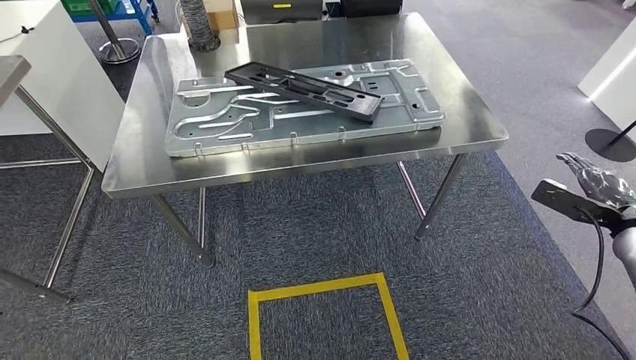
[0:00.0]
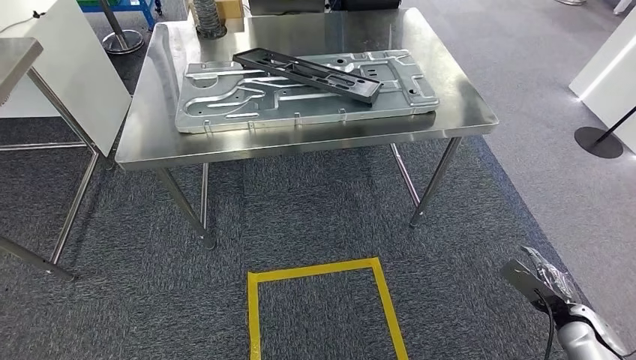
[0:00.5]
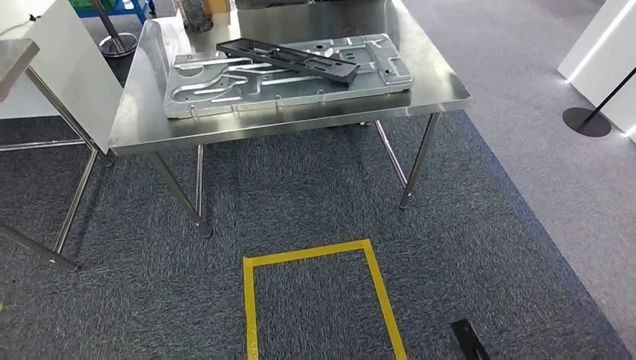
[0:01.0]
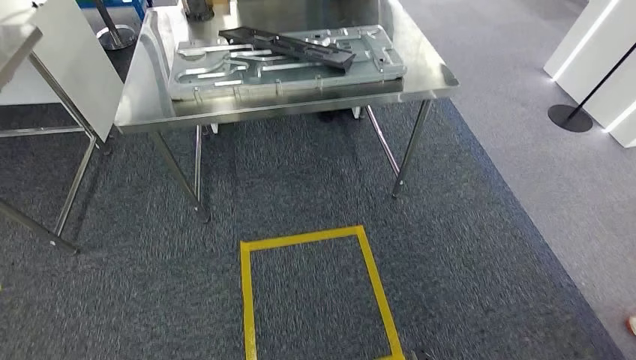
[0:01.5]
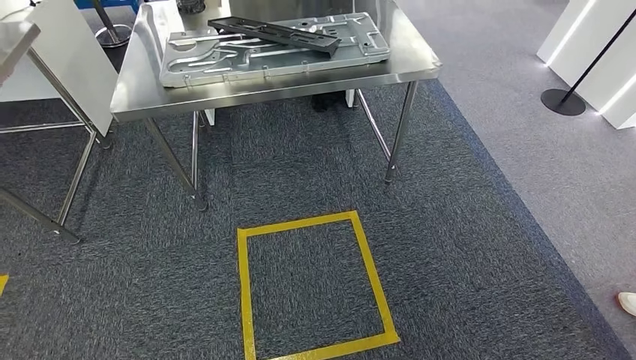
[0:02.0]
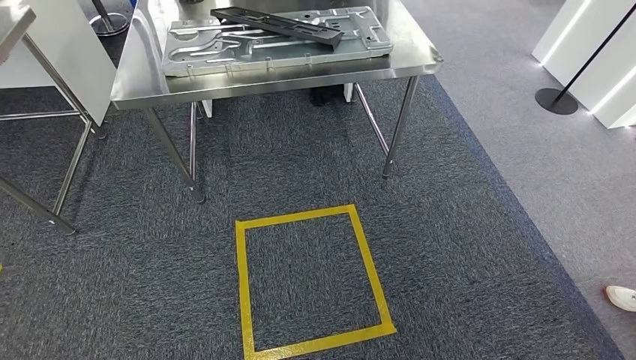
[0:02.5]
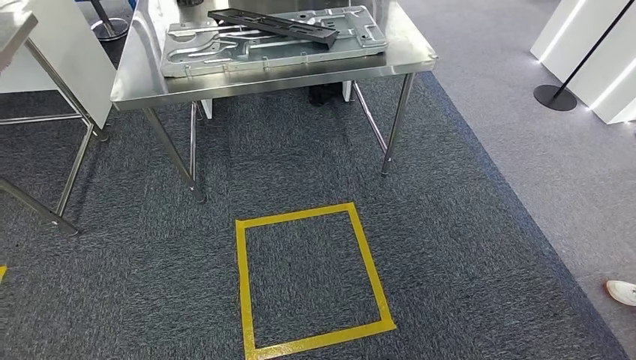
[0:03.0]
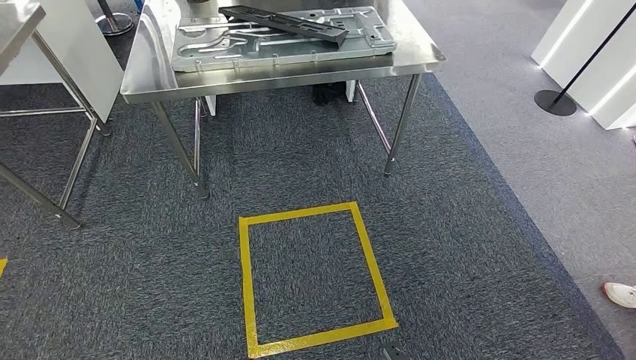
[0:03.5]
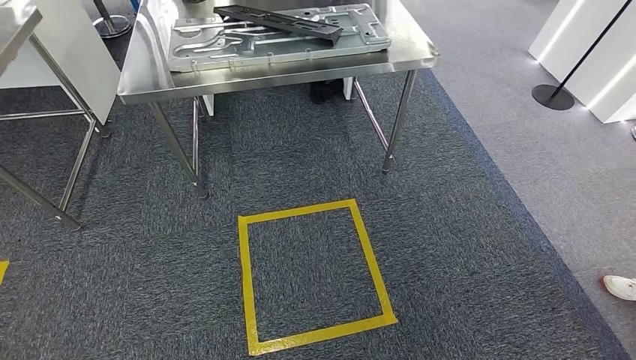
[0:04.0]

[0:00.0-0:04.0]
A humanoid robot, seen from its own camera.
Step, 0:00.0 to 0:04.0: Move to the initial position of the shelf.
0:02.0 to 0:04.0: The right hand shifts some 5 cm backward.

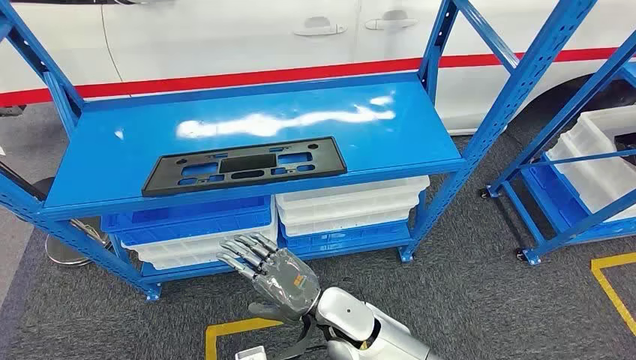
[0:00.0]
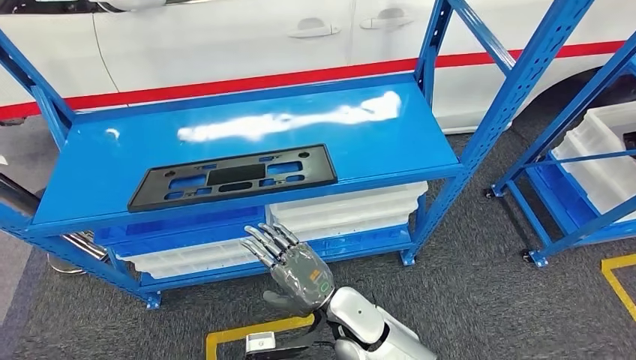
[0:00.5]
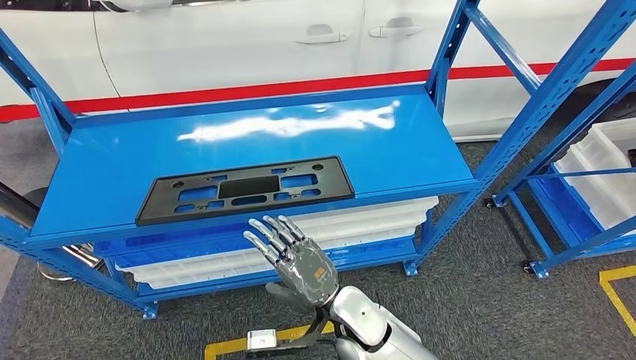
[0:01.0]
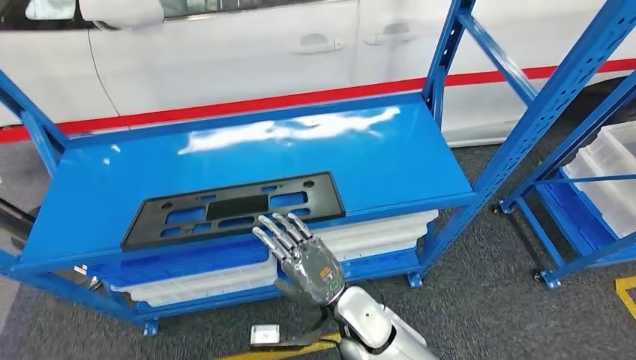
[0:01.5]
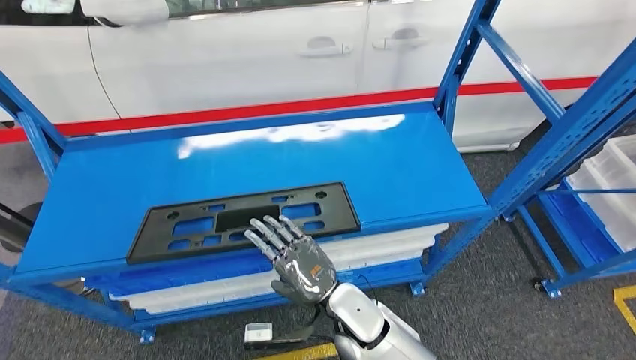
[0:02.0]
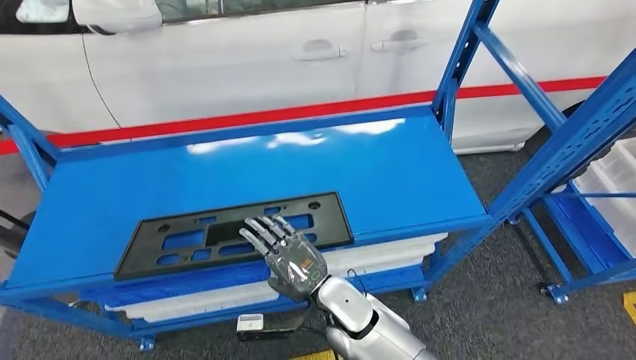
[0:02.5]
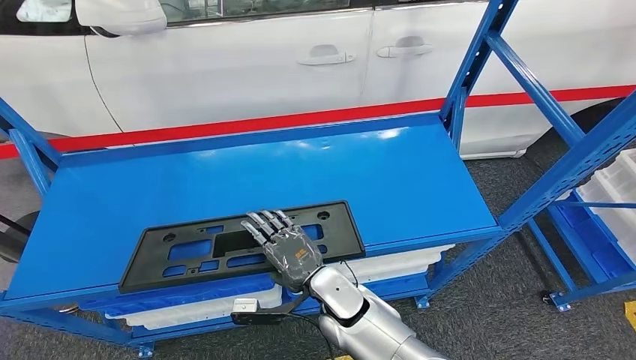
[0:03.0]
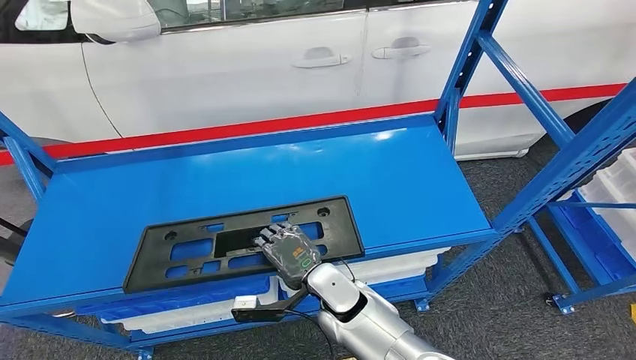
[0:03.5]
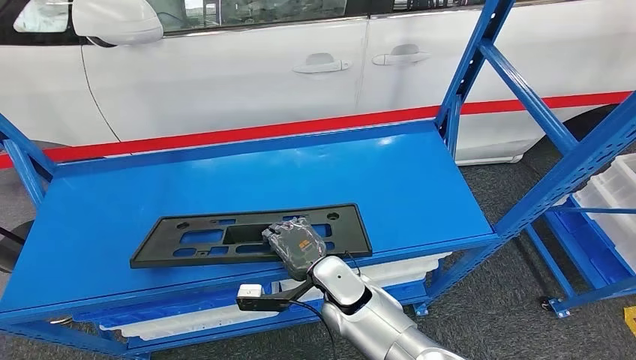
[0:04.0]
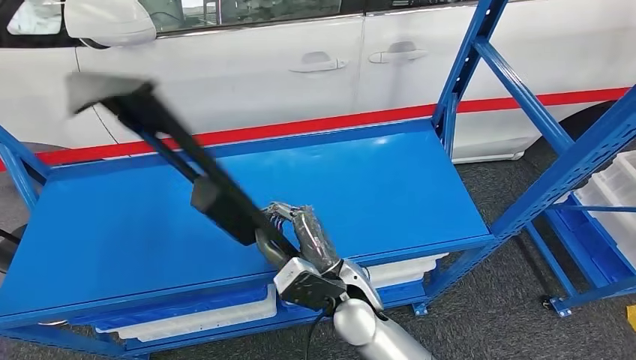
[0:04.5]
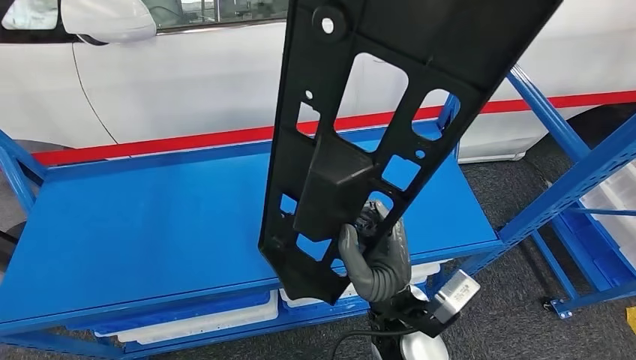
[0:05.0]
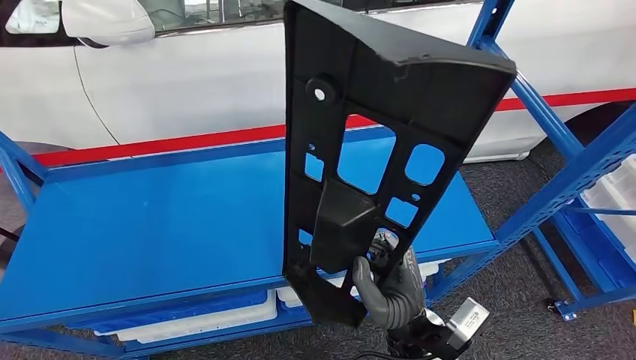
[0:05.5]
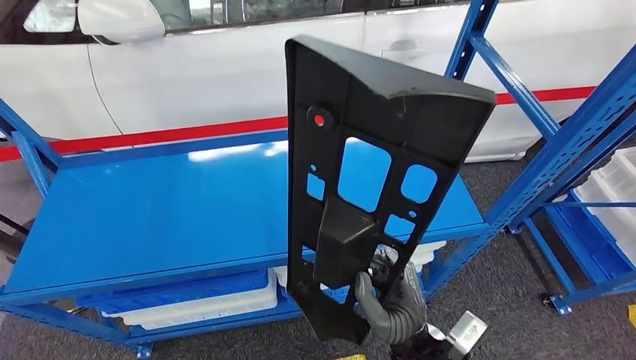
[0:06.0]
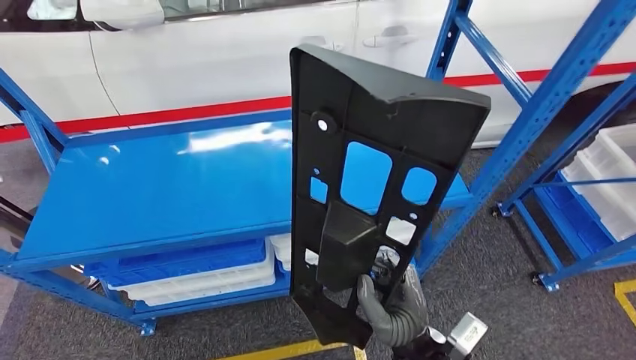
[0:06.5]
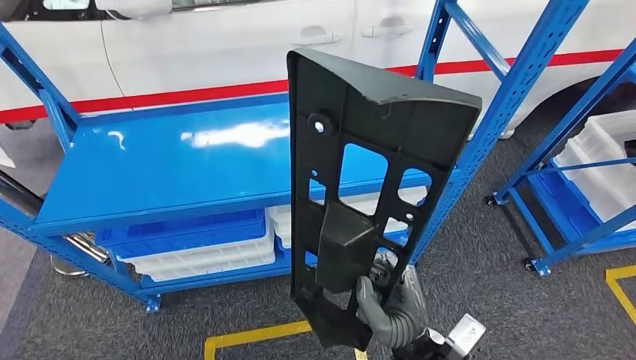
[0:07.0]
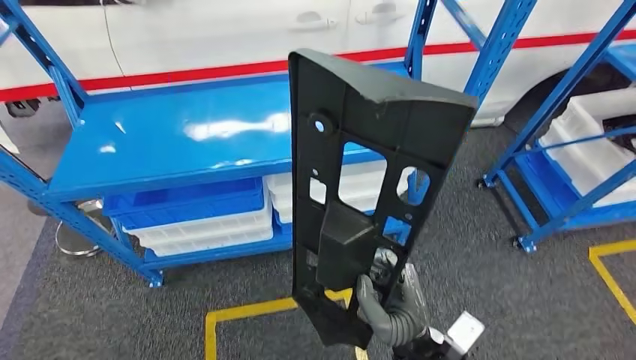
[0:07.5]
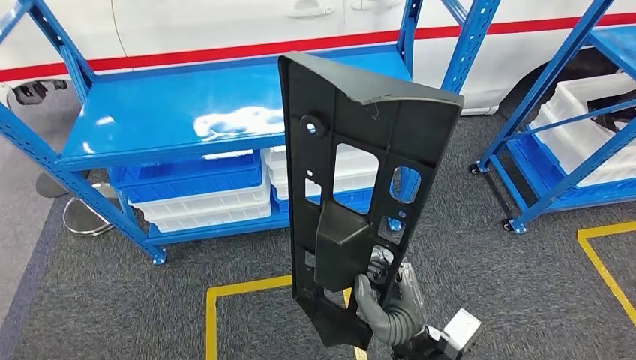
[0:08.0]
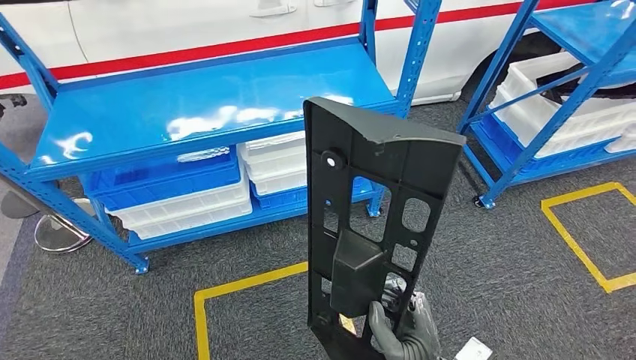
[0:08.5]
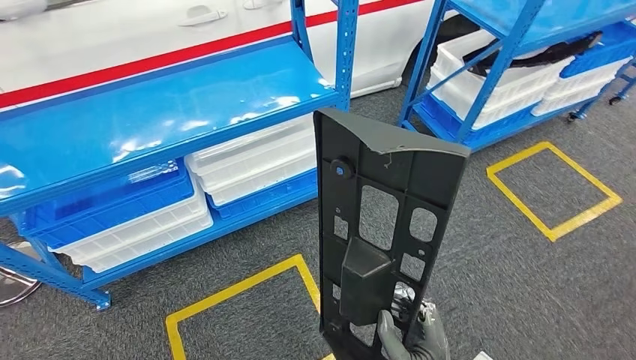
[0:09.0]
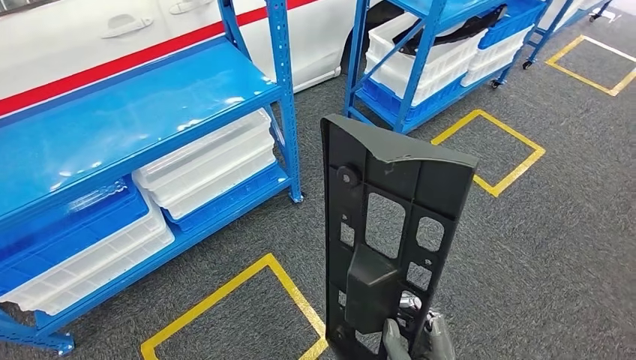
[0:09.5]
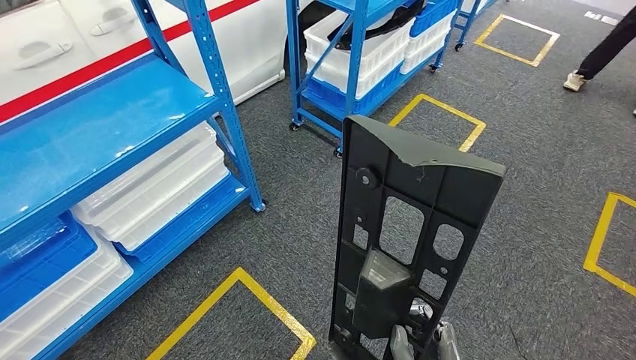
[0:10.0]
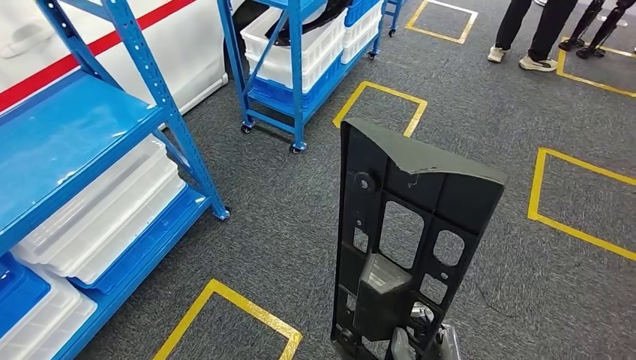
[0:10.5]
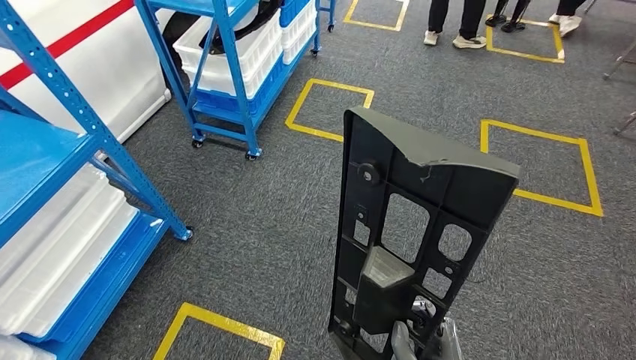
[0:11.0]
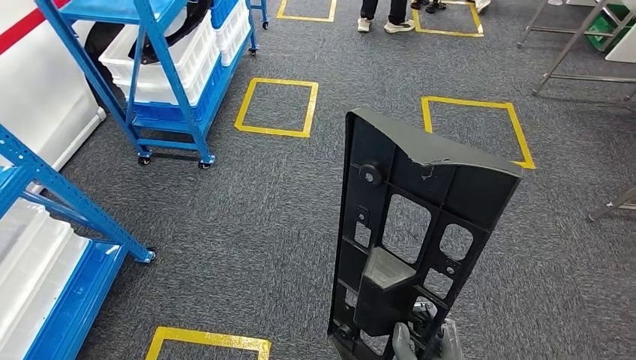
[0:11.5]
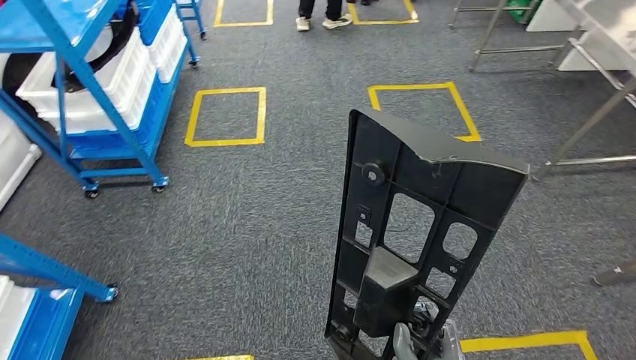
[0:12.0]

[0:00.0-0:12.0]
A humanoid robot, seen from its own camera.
Step, 0:00.0 to 0:06.0: Pick up the large material from the shelf.

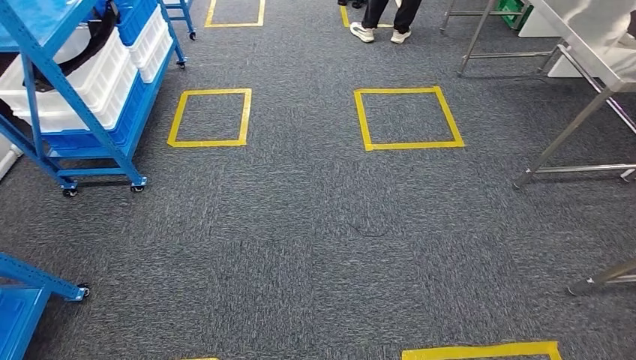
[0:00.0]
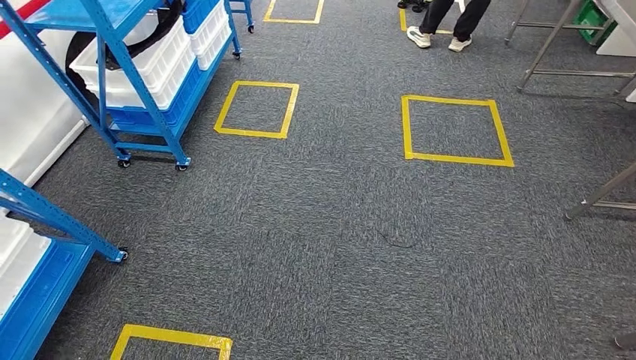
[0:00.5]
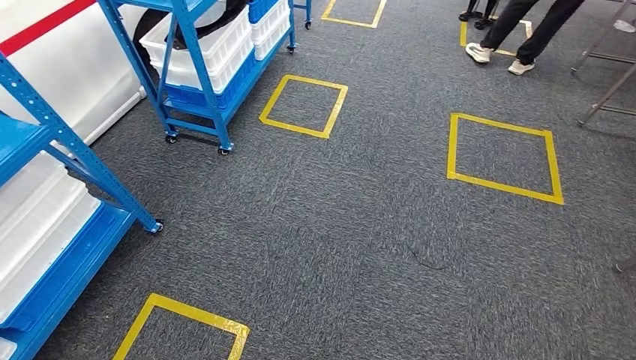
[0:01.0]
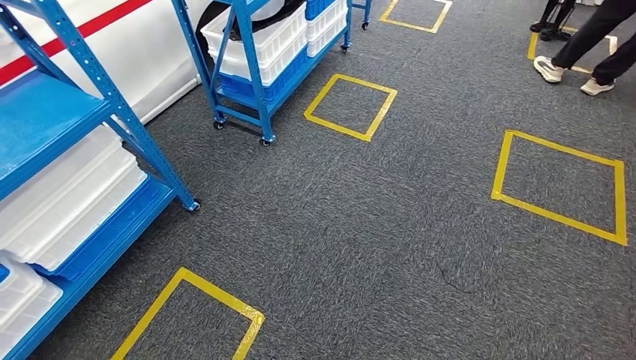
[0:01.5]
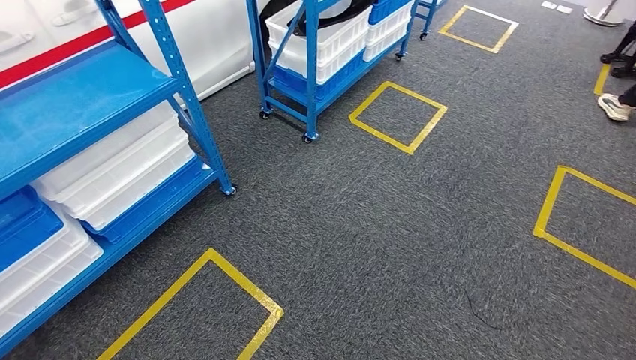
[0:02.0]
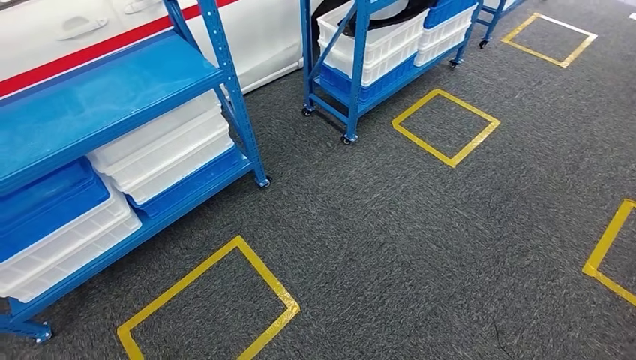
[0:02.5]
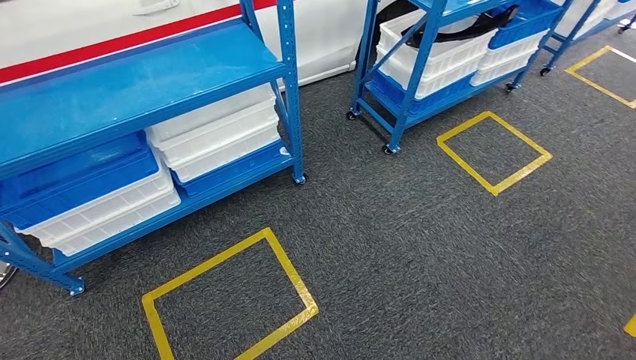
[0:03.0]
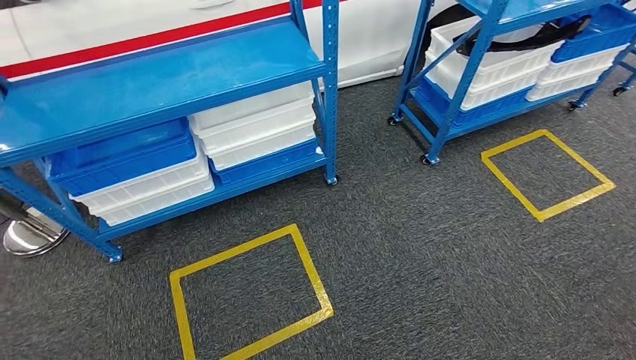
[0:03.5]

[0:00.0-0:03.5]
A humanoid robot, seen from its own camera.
Step, 0:00.0 to 0:03.5: Move to the initial position of the shelf.
